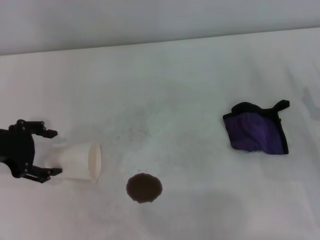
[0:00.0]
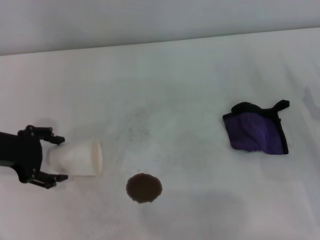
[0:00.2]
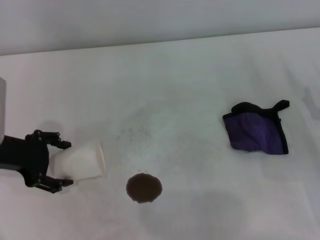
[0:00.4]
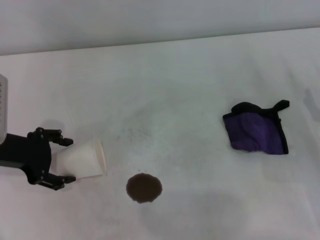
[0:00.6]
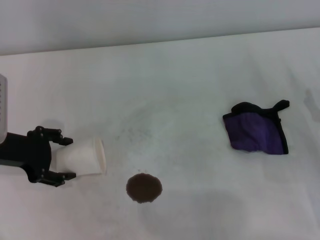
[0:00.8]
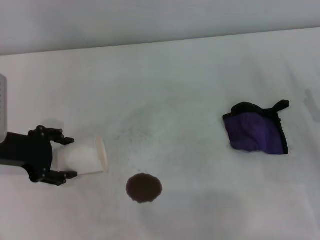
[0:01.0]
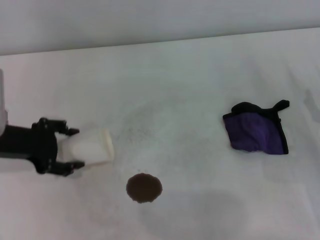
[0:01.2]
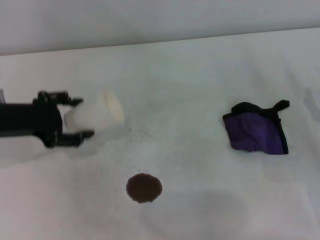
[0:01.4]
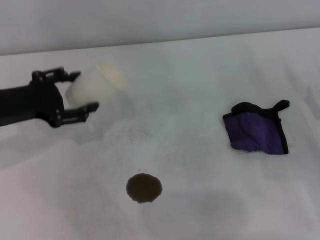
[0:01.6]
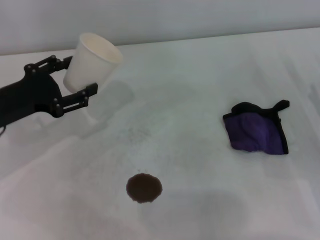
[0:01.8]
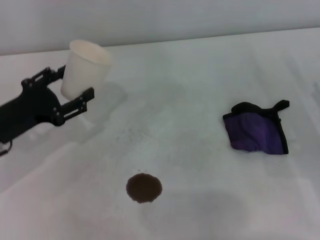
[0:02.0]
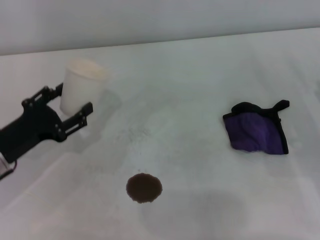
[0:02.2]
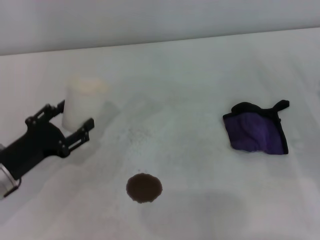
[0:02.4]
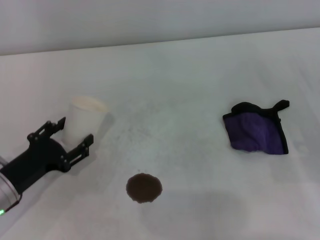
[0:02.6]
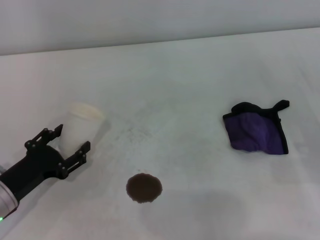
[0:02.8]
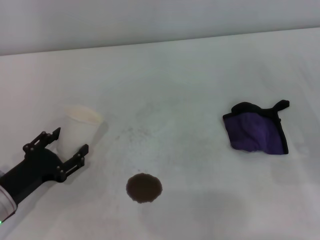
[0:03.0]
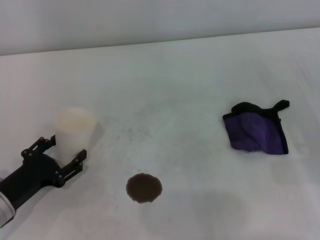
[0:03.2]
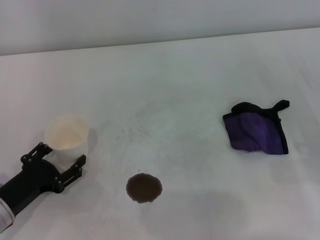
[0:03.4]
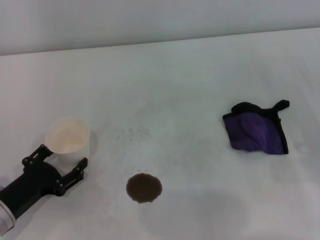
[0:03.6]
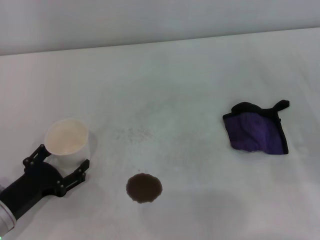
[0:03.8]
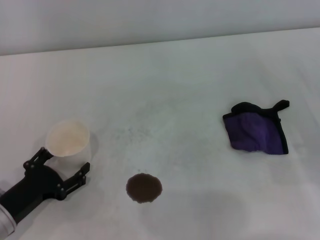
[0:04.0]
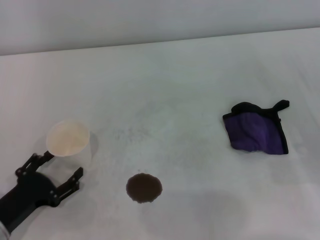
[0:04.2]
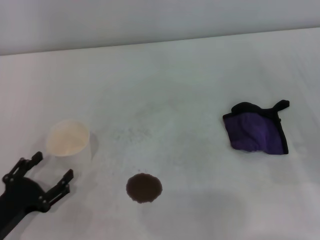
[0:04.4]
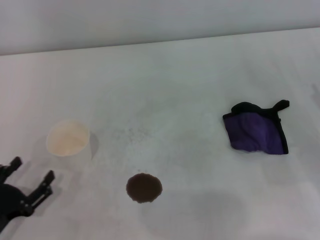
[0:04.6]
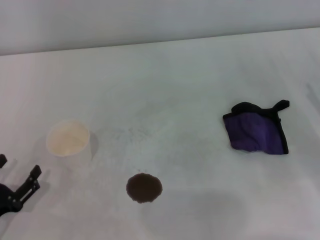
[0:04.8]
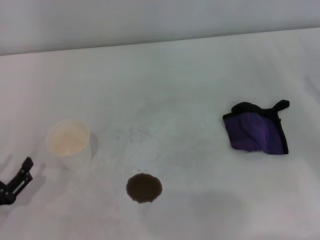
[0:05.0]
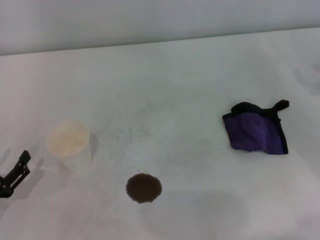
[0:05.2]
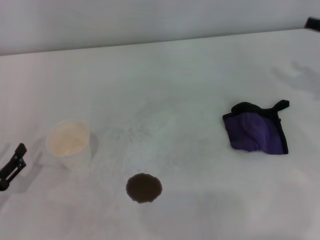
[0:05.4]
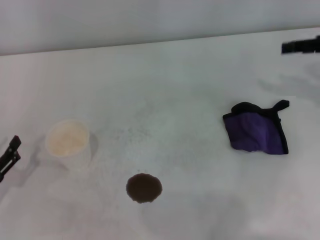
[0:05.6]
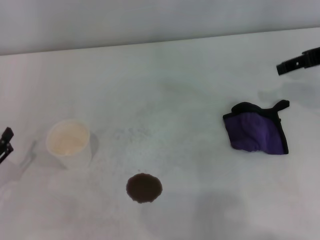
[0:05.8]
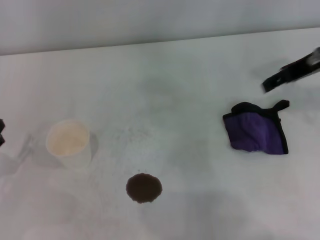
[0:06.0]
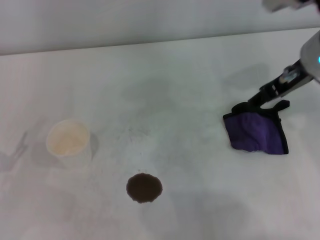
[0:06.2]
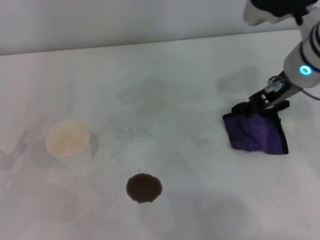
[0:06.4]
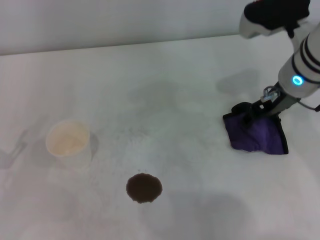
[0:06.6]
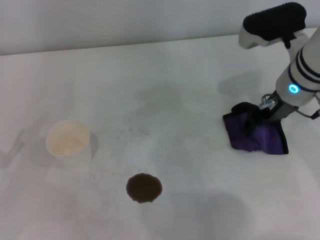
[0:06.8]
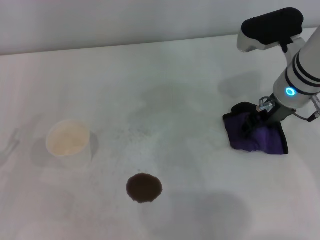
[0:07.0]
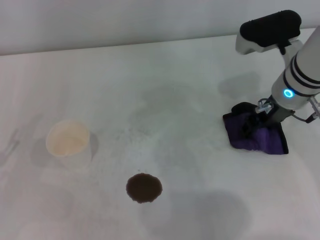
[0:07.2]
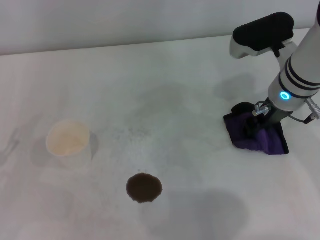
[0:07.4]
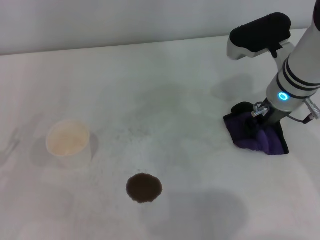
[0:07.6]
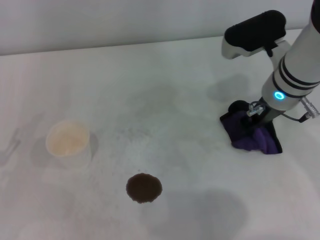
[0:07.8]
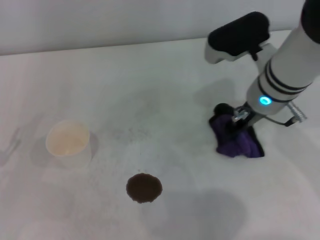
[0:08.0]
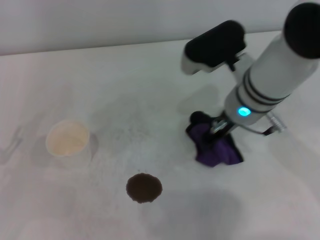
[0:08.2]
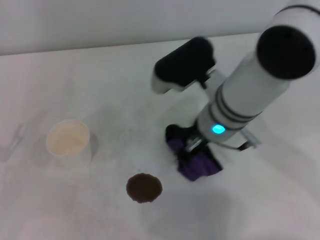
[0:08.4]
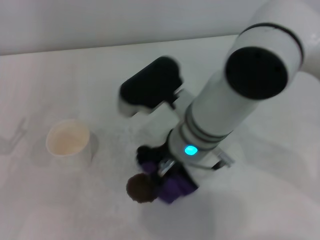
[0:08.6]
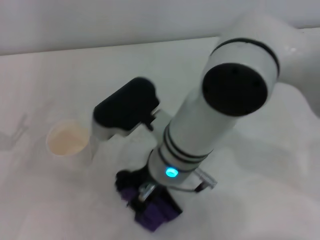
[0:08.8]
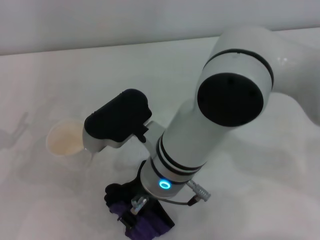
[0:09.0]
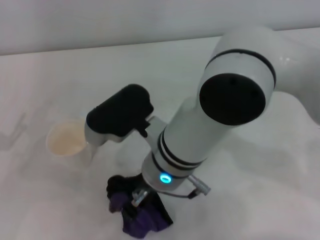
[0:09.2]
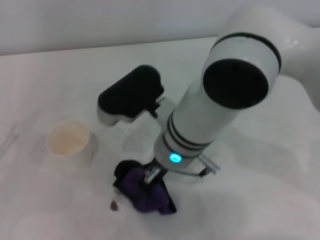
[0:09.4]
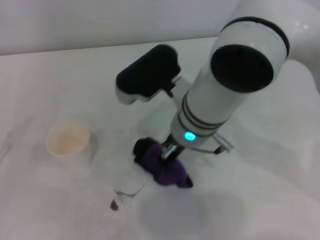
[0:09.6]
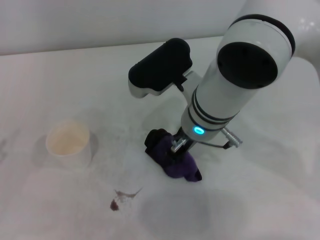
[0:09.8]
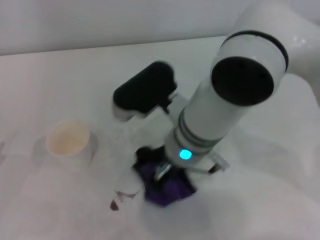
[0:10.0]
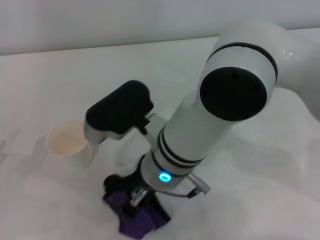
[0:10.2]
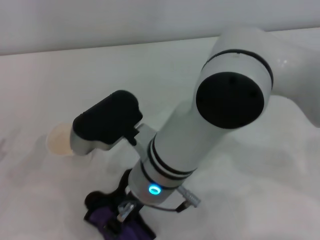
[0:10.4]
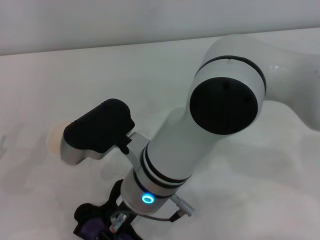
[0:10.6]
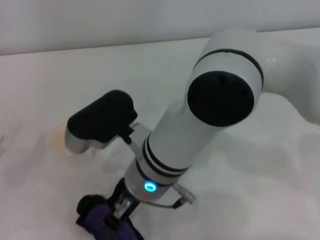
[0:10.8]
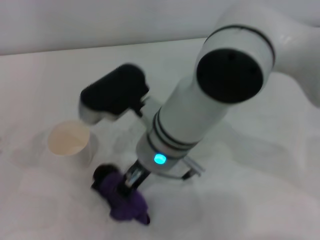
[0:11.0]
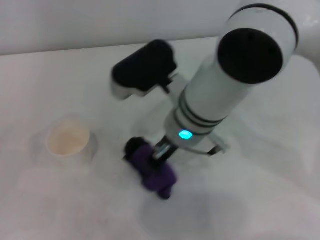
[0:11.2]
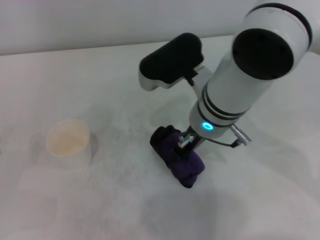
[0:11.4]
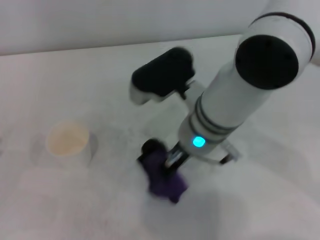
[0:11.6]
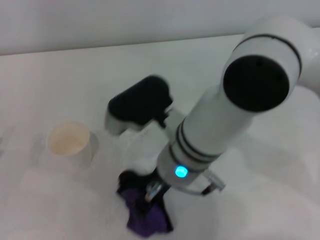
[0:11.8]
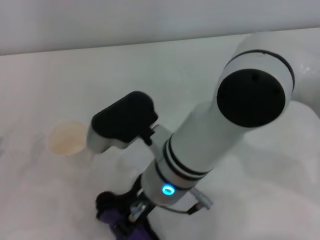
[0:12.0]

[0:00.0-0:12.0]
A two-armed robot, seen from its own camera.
Step, 0:01.2 to 0:04.0: Stand the paper cup upright with the left gripper.
Step, 0:04.2 to 0:07.6: Grasp the rag with the right gripper.
0:01.6 to 0:03.0: The left gripper goes some 15 cm downward and backward.
0:03.0 to 0:04.4: The left gripper is displaced backward by about 5 cm.
0:04.4 to 0:06.0: The left gripper moves some 5 cm. Meanwhile the right gripper moves upward, forward and to the left, about 25 cm.
0:06.0 to 0:07.6: The right gripper travels downward and to the left by about 10 cm, and closes.
0:07.6 to 0:09.0: The right gripper moves to the left and backward, about 20 cm.
0:09.0 to 0:10.4: The left gripper shifts about 5 cm backward.
0:10.4 to 0:12.0: The right gripper goes to the right and returns, roughly 5 cm each way.

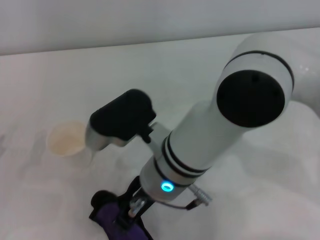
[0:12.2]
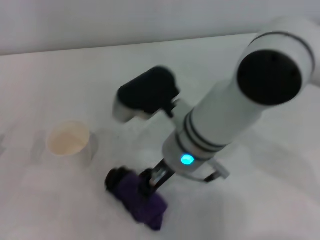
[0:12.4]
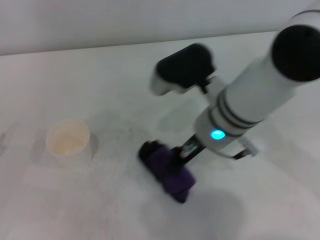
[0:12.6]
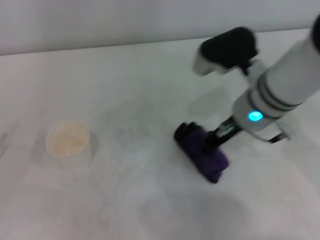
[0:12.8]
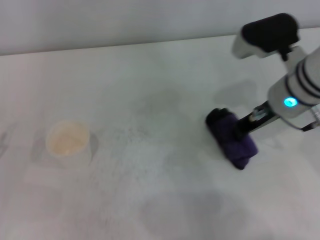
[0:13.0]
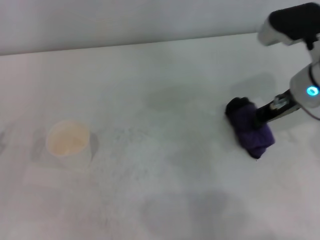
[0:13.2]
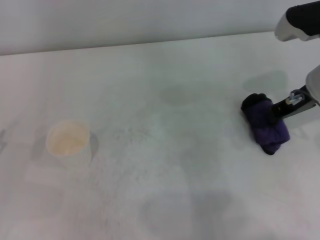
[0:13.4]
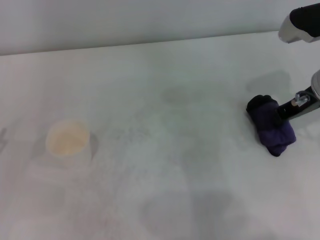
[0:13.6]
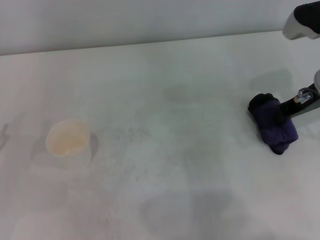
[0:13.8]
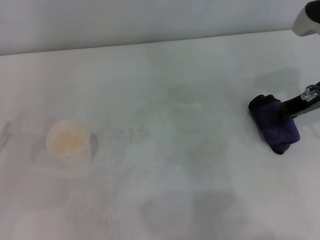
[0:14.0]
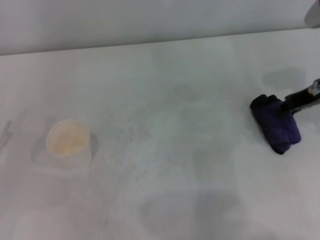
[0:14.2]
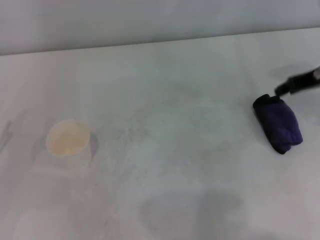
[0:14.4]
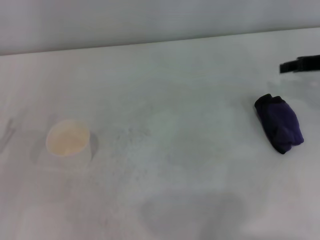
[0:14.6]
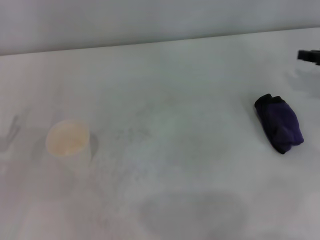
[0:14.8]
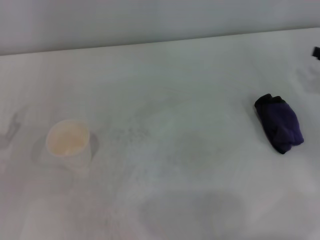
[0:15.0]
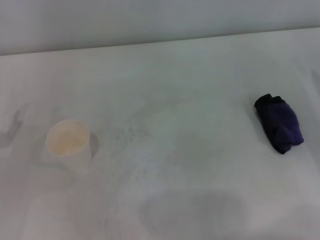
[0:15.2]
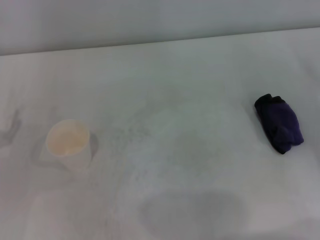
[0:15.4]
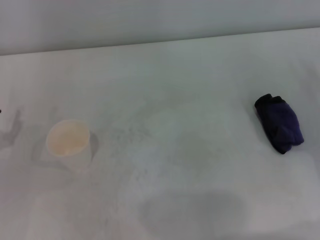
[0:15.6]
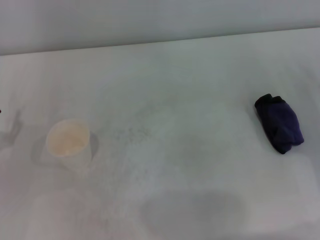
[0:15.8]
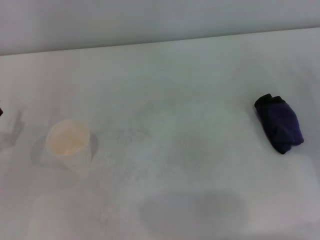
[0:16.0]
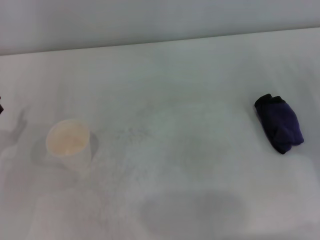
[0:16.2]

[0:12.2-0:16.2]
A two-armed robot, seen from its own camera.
Step, 0:13.2 to 0:13.8: Place the rag on the table with the right gripper.
0:12.2 to 0:13.6: The right gripper goes roughly 25 cm to the right.
0:13.6 to 0:14.8: The right gripper heads to the right, covering about 10 cm, and opens.
